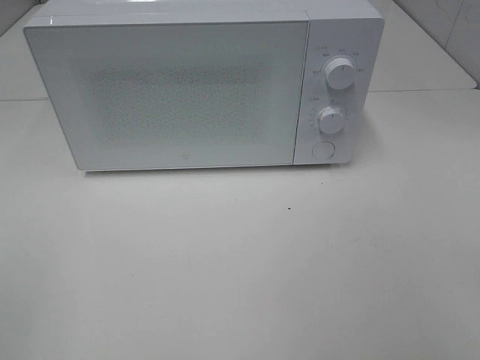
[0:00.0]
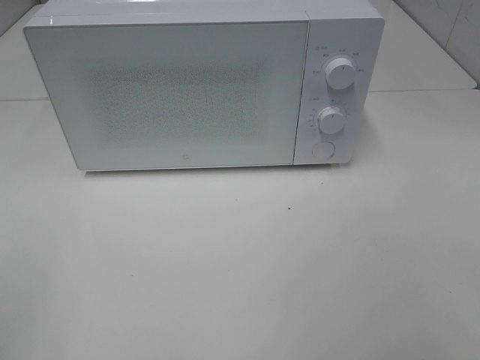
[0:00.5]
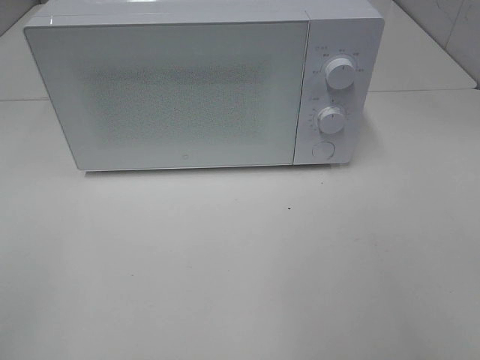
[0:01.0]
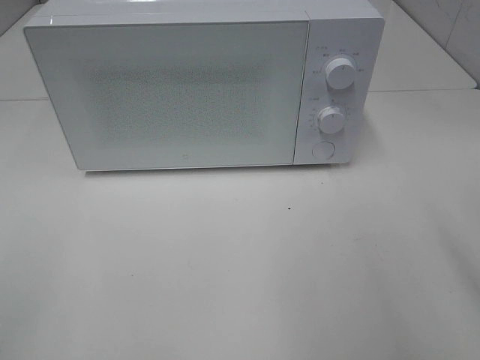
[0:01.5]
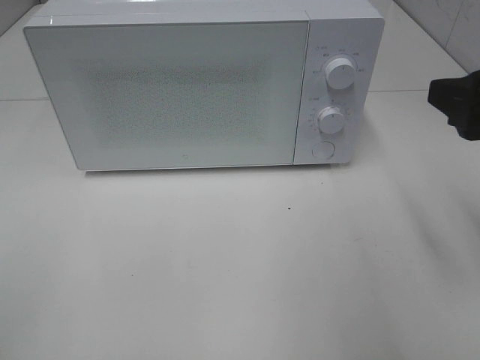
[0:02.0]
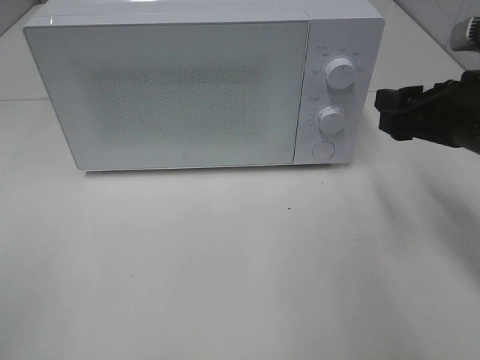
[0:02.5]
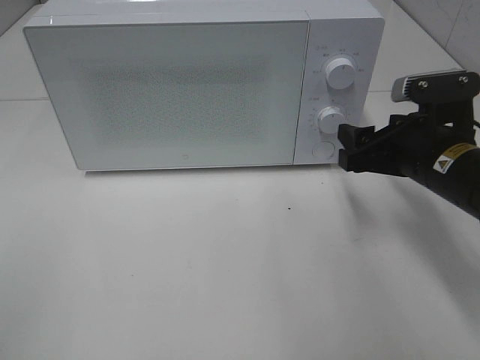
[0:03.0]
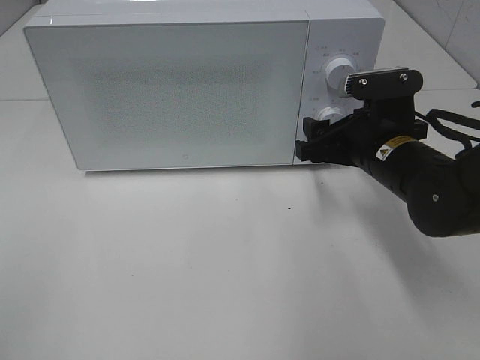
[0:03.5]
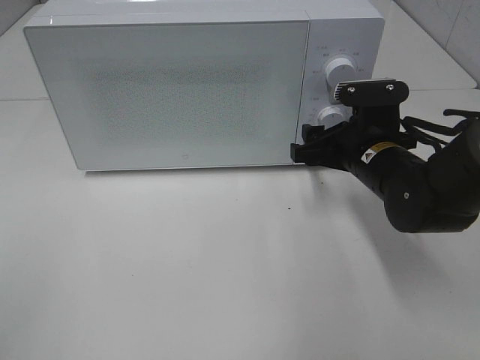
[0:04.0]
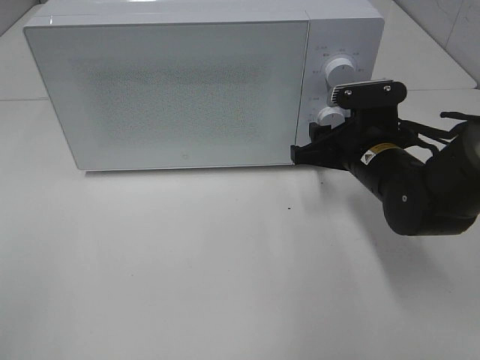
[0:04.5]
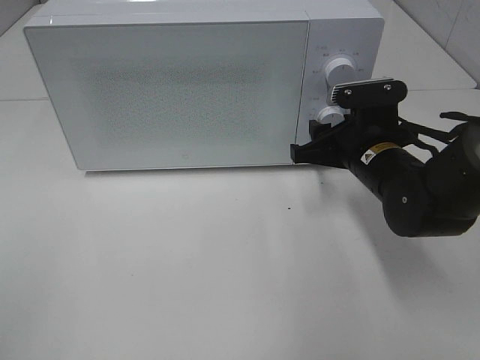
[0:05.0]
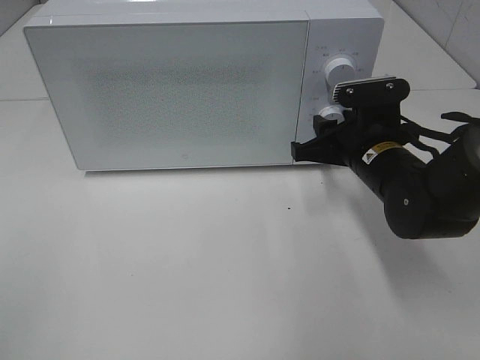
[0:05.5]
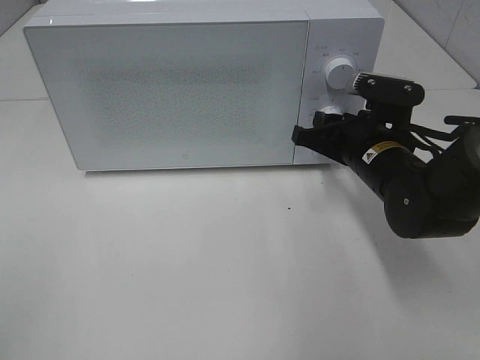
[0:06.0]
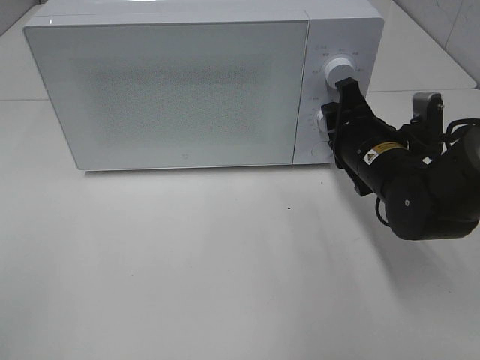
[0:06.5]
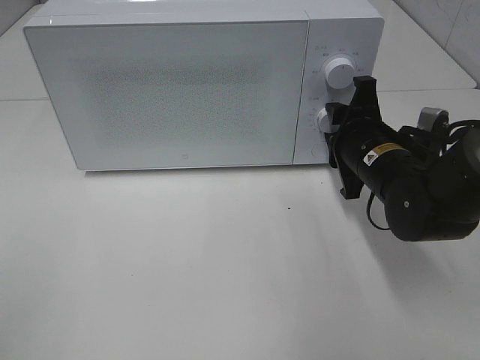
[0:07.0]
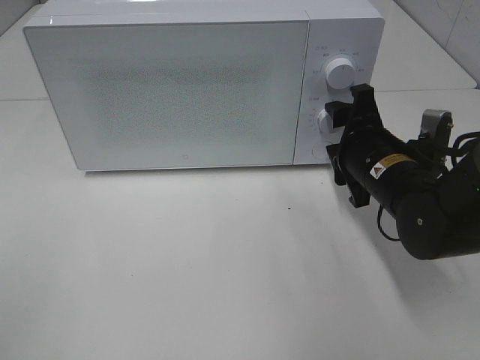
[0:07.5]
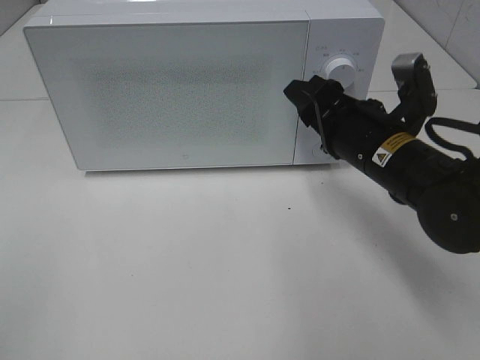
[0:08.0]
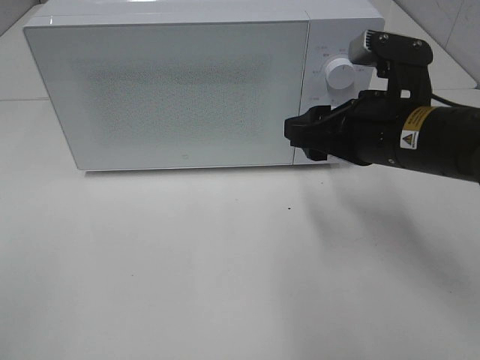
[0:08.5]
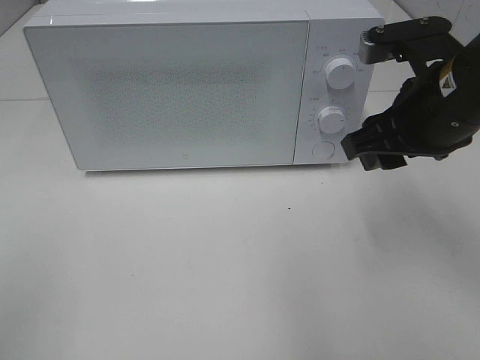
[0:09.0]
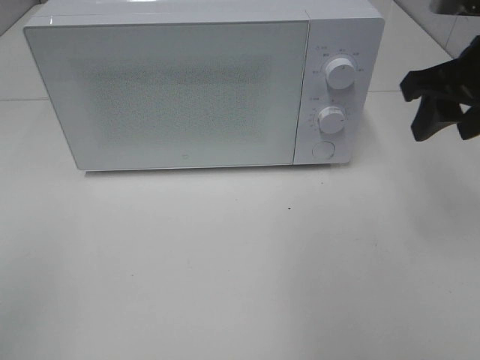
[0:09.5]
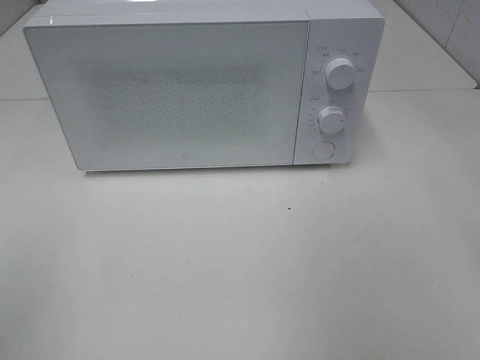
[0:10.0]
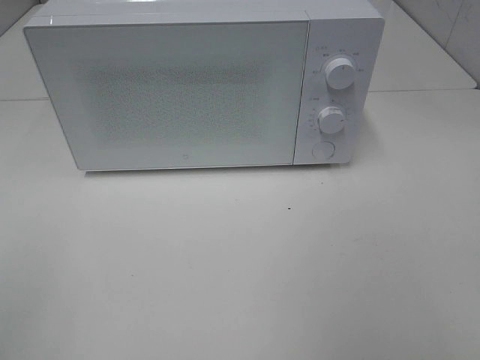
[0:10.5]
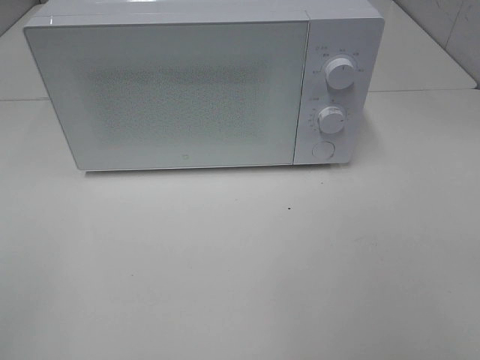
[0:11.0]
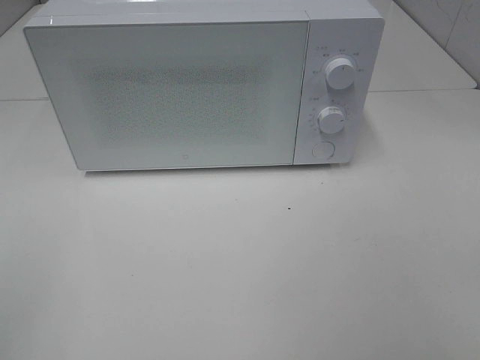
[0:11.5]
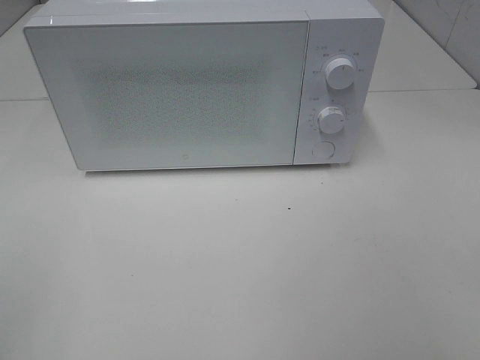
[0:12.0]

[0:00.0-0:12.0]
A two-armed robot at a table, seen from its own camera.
Task of the whole recording: Heat the burger.
Step, 0.0 to 7.0 s: Right hand: twist timer button.
0.0 to 2.0 s: The right gripper goes roughly 20 cm forward.
2.0 to 4.0 s: The right gripper shifts about 20 cm downward, forward and to the left.
4.0 to 6.0 s: The right gripper closes.
6.0 to 8.0 s: The right gripper moves some 5 cm.
8.0 to 10.0 s: The right gripper is displaced upward and to the right by about 20 cm.

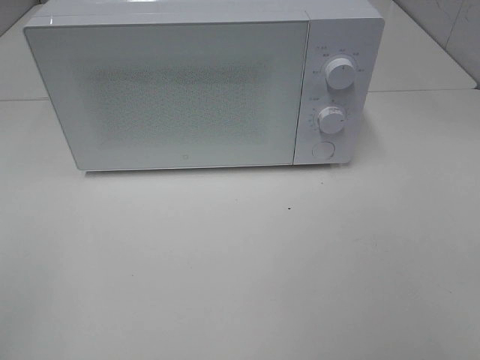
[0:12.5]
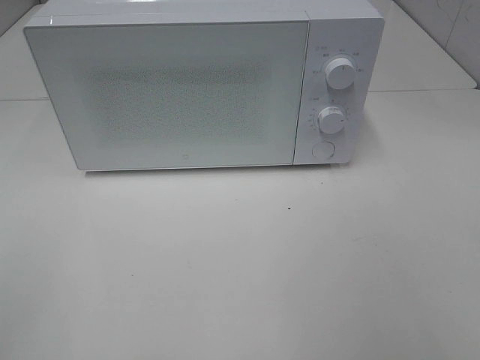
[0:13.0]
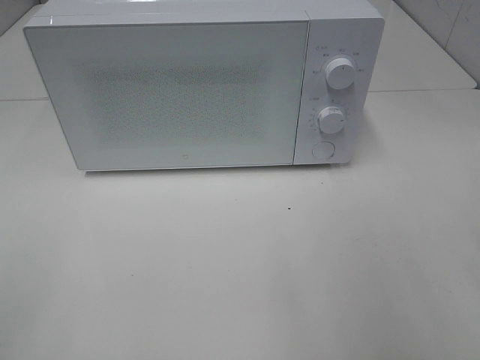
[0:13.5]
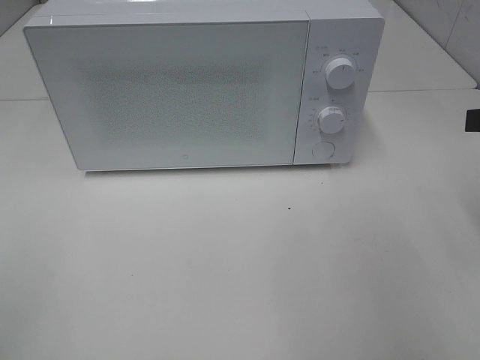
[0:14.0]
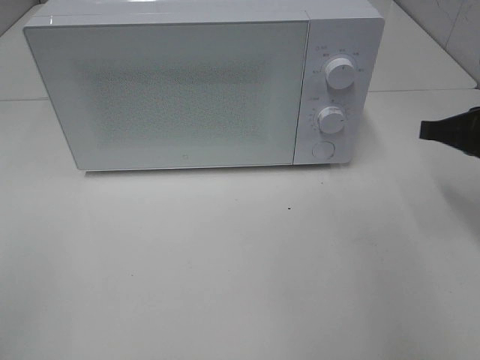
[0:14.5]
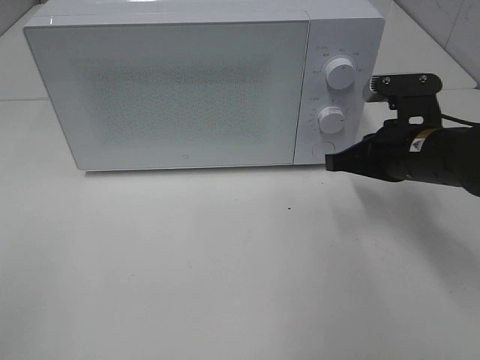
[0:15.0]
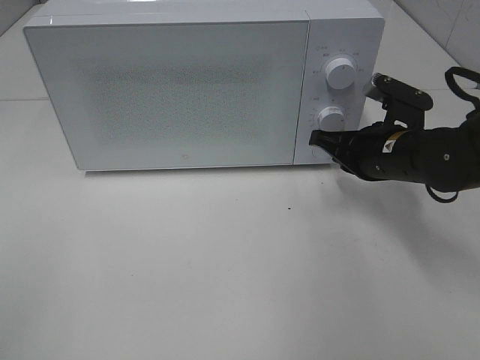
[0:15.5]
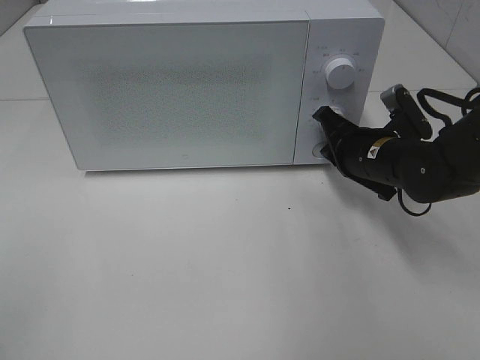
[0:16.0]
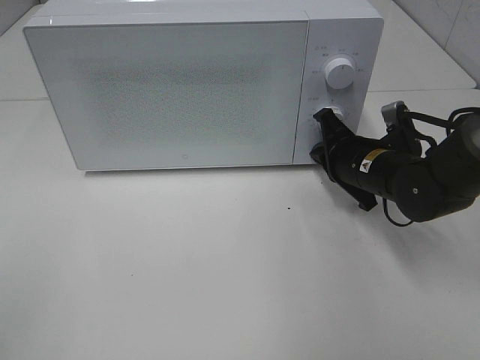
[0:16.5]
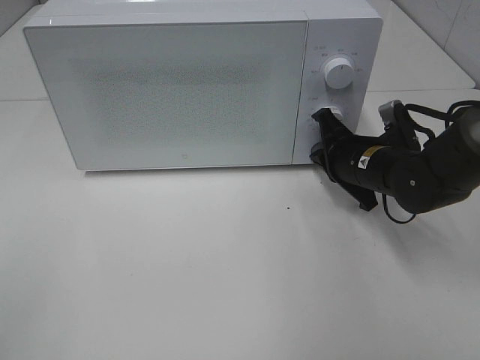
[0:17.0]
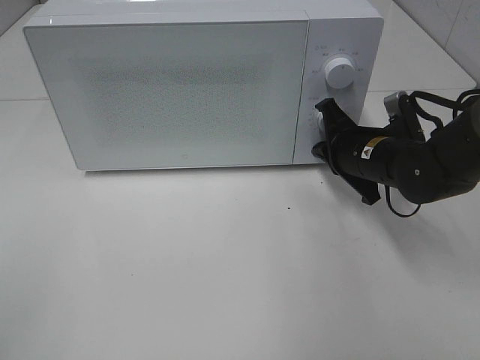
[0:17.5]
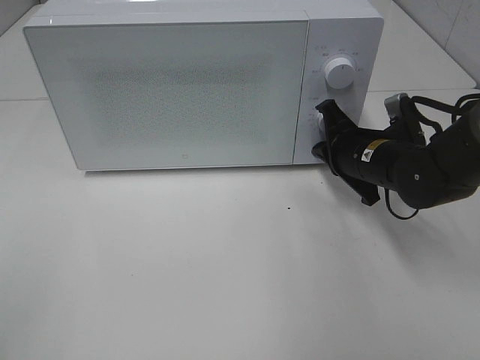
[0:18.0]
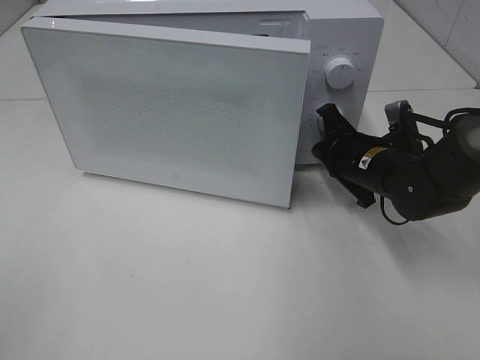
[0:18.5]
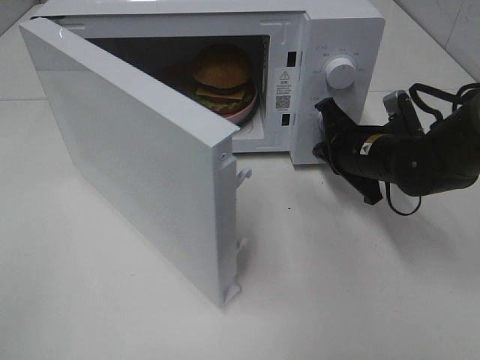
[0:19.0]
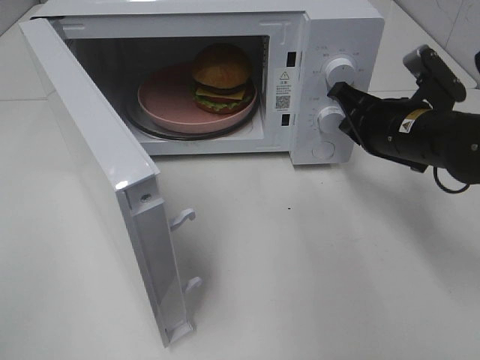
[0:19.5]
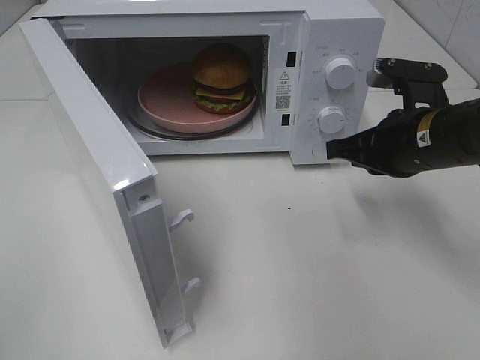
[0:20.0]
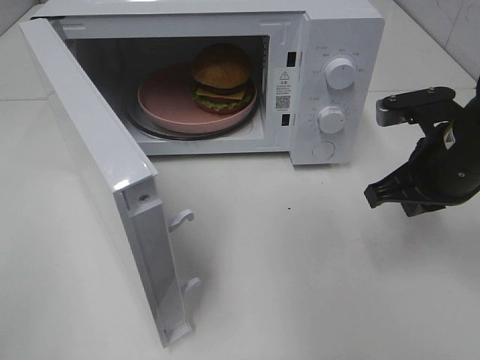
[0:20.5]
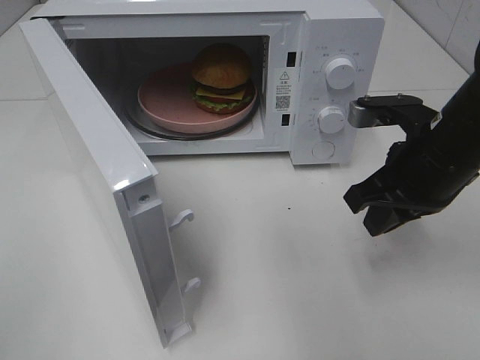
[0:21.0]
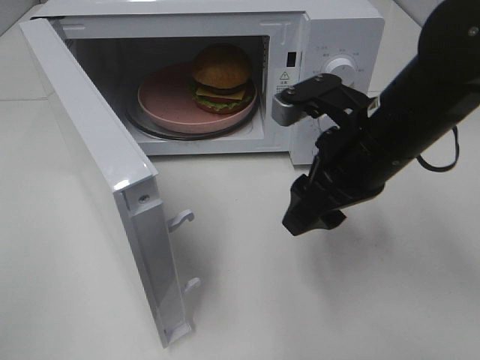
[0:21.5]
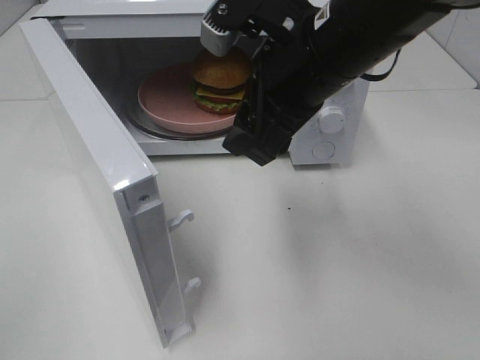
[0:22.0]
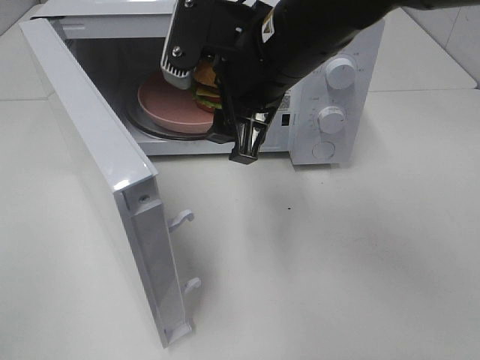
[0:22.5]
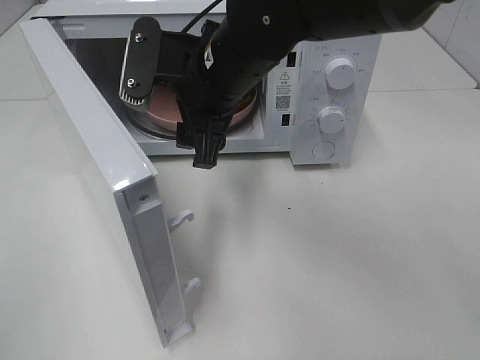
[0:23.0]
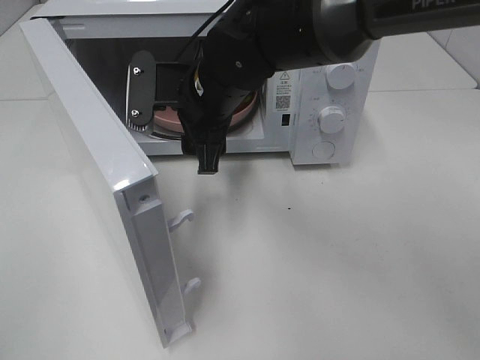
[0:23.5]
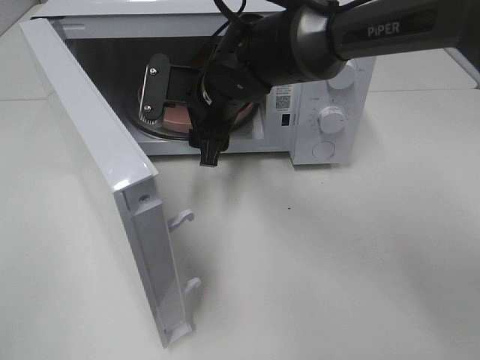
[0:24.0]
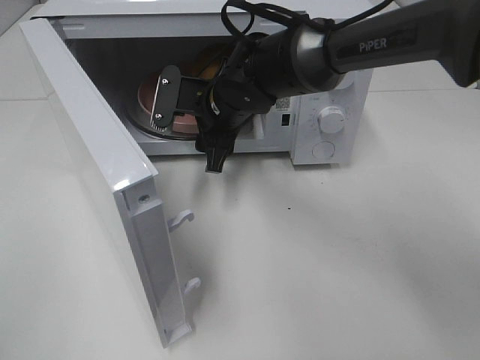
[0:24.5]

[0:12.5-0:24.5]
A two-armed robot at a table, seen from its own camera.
Task of the whole recording: Heat the burger.
Step, 12.5 to 19.0 s: Right hand: press the switch.
12.5 to 14.5 s: The right gripper goes roughly 30 cm forward, and closes.
14.5 to 16.5 s: The right gripper shifts roughly 15 cm to the left, downward and forward.
16.5 to 18.5 s: The grippers move only a little.
18.5 to 20.5 s: The right gripper is displaced upward and backward by approximately 10 cm.
20.5 to 22.5 s: The right gripper shifts roughly 20 cm to the left and upward, and opens up.
22.5 to 24.5 s: The right gripper shifts about 15 cm downward and forward.

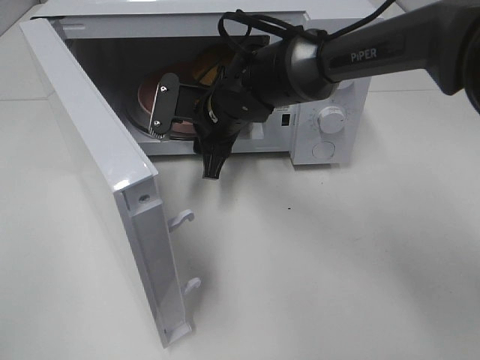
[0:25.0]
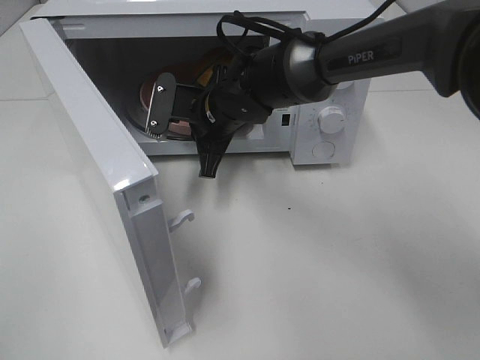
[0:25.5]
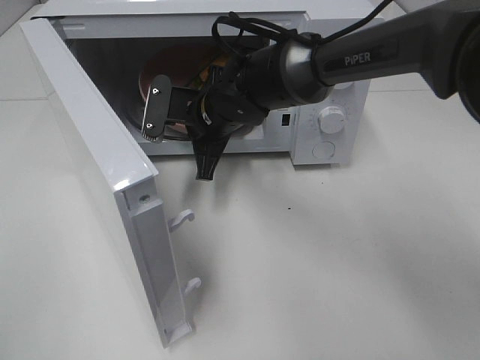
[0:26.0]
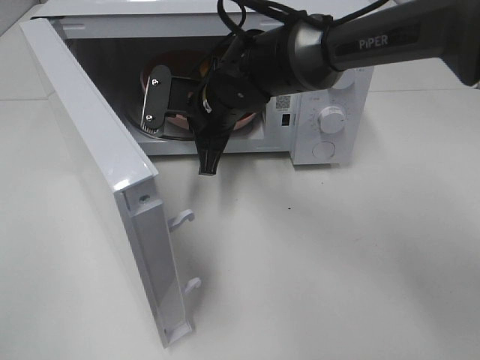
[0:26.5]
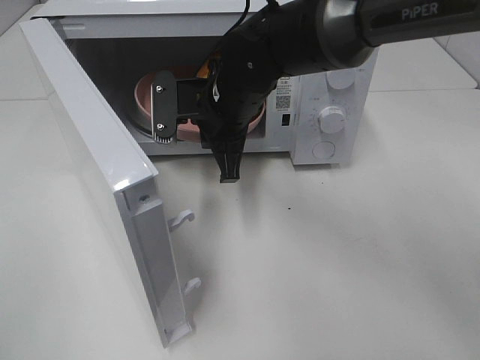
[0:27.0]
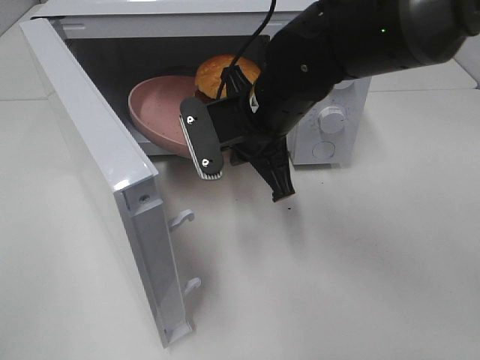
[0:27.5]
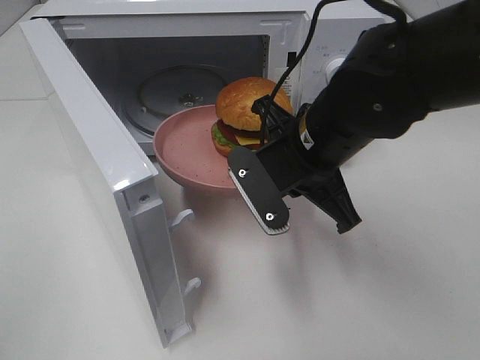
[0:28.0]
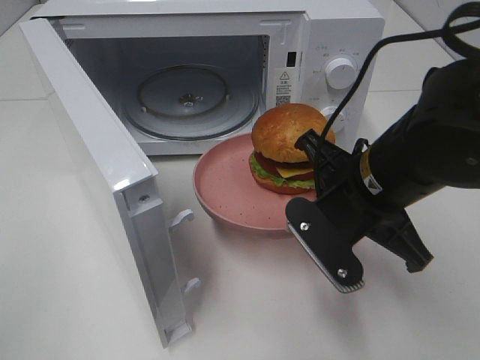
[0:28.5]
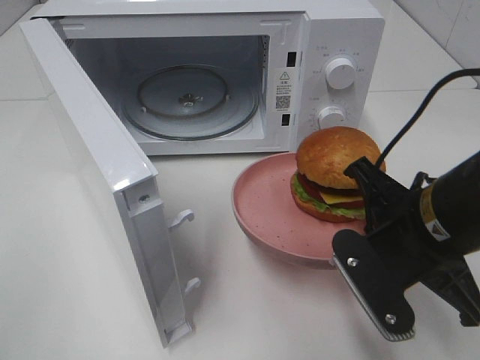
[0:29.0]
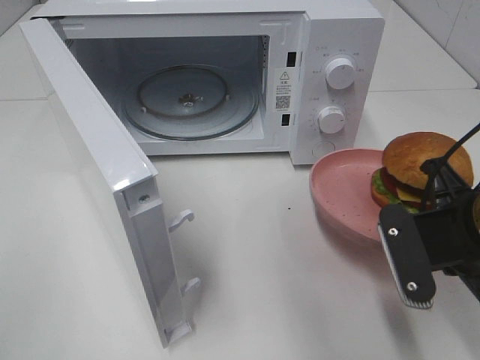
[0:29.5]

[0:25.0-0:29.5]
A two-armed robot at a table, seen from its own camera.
Task of the whole recording: Heat the burger.
25.0 to 27.0 s: The right gripper moves approximately 5 cm, and closes.
27.0 to 29.5 s: The right gripper goes some 25 cm to the right and backward.
